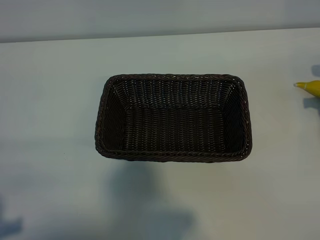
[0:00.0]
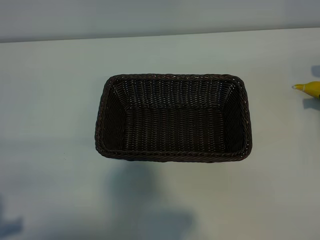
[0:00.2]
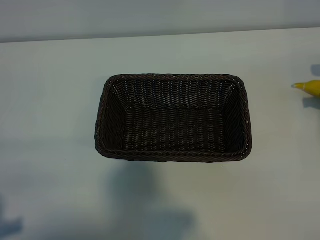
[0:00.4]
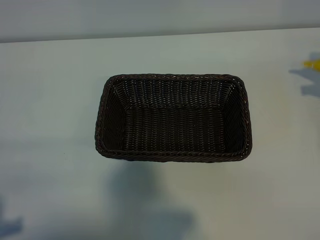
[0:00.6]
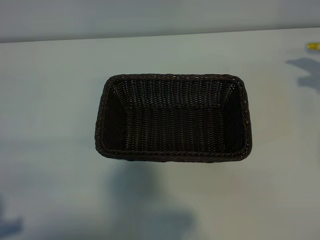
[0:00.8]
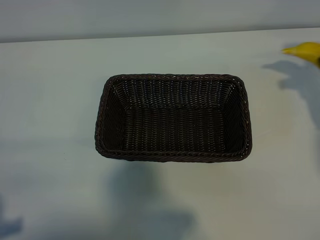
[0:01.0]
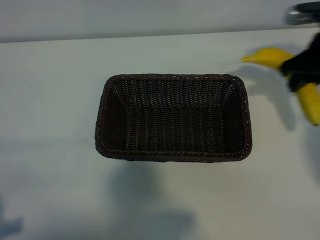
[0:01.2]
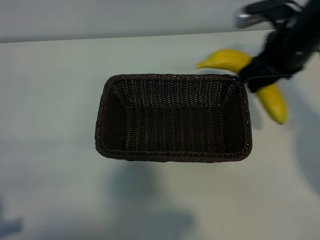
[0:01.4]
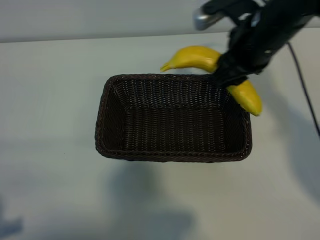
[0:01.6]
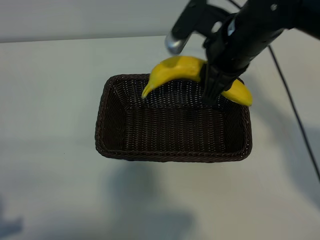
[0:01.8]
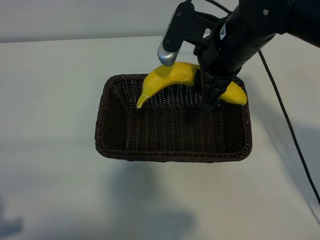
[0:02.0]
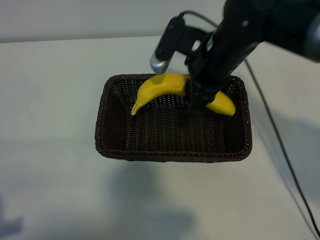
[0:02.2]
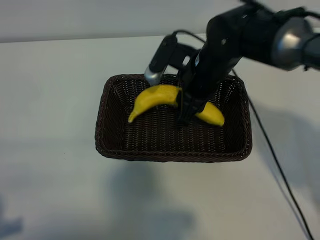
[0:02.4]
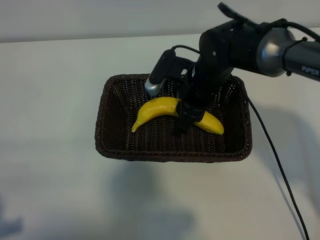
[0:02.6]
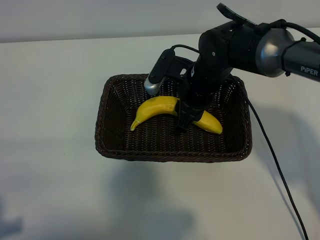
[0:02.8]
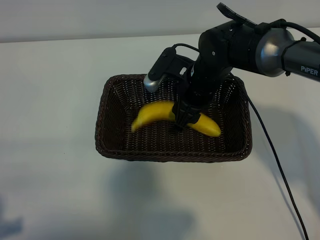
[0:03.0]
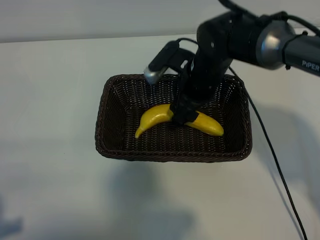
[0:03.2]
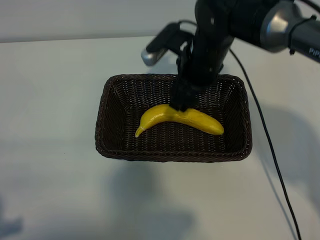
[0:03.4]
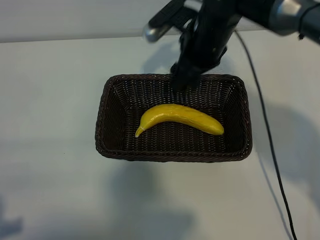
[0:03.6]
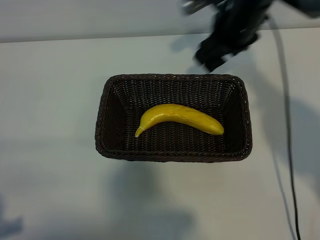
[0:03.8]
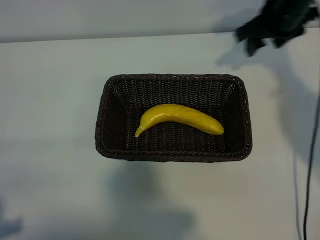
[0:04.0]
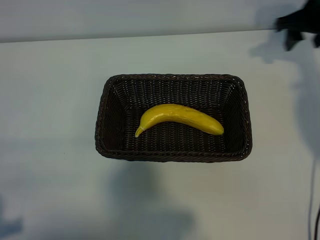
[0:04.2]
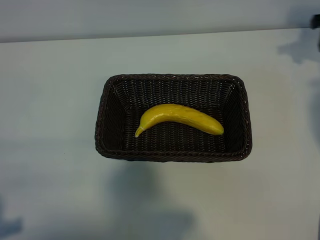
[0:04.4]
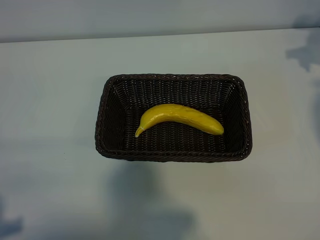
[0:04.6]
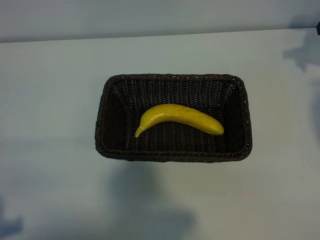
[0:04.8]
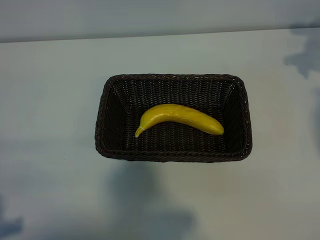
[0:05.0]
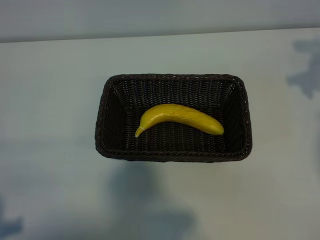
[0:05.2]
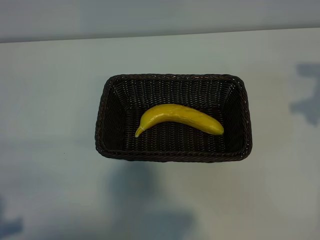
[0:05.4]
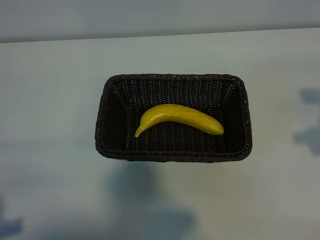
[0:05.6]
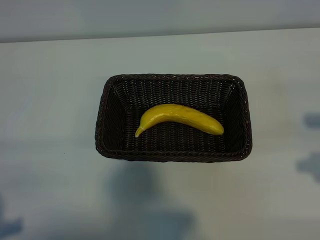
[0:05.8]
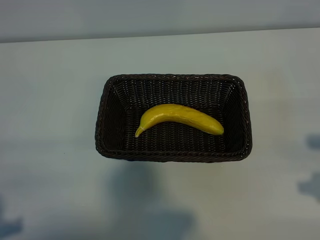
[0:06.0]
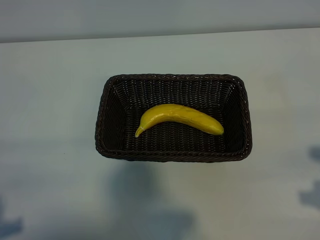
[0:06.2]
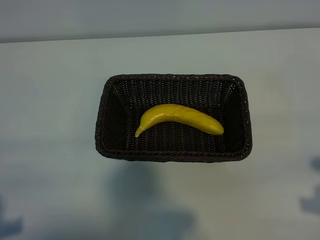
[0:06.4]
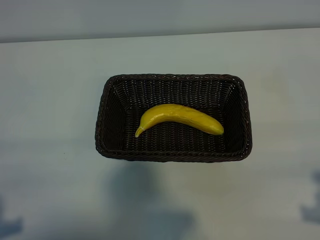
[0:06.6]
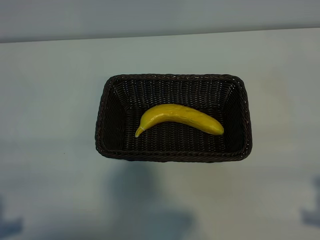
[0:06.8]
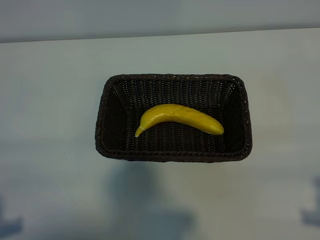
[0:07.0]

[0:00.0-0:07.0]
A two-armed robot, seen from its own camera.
Task of the whole recording: pick up the banana and put it into the basket.
Step, 0:00.2 to 0:03.0: Place the banana in the basket with right gripper.

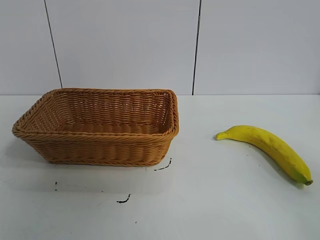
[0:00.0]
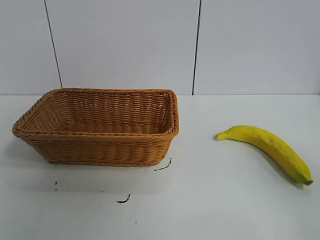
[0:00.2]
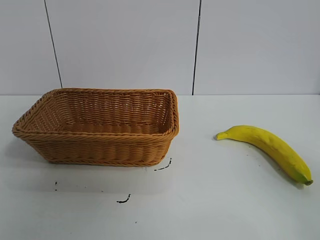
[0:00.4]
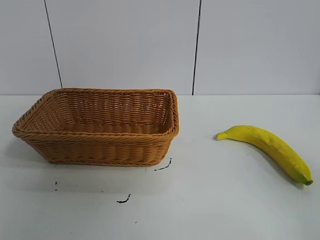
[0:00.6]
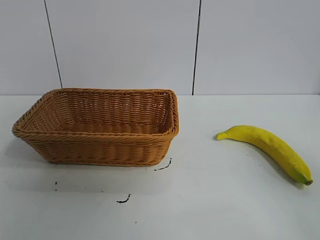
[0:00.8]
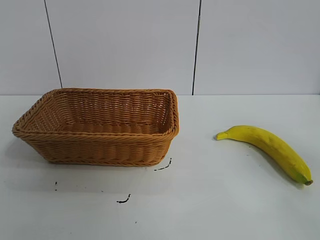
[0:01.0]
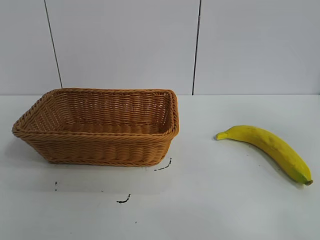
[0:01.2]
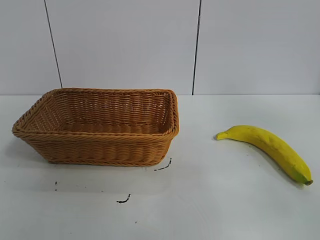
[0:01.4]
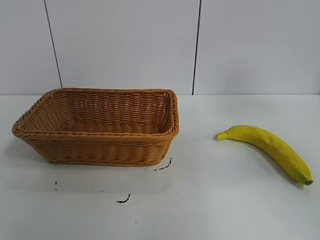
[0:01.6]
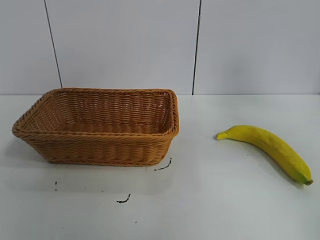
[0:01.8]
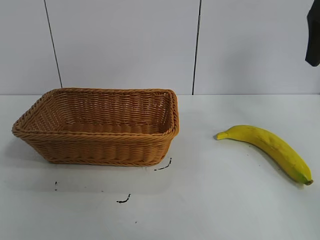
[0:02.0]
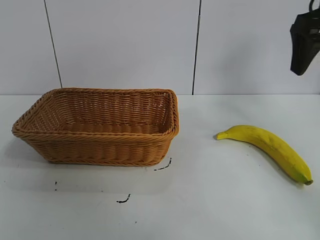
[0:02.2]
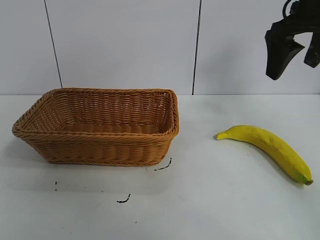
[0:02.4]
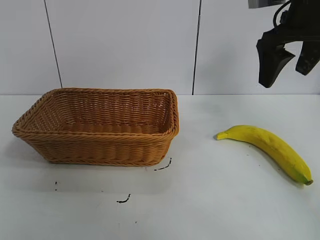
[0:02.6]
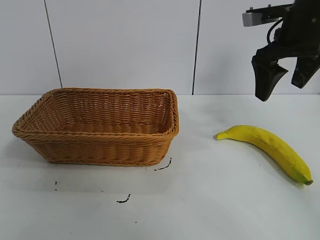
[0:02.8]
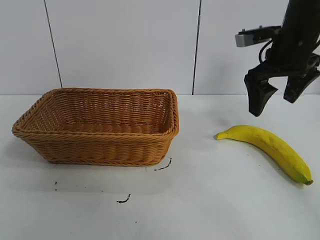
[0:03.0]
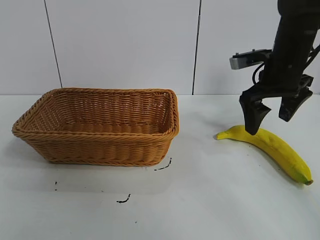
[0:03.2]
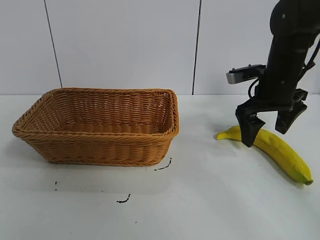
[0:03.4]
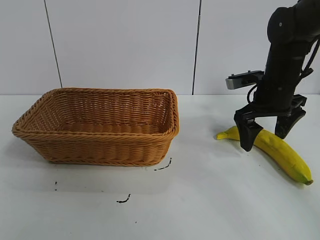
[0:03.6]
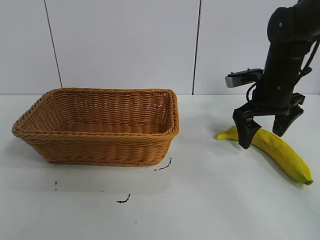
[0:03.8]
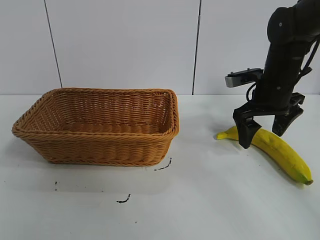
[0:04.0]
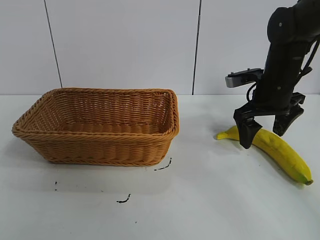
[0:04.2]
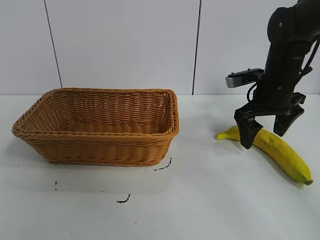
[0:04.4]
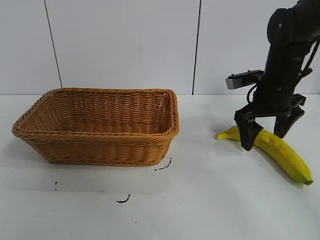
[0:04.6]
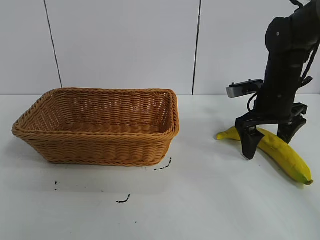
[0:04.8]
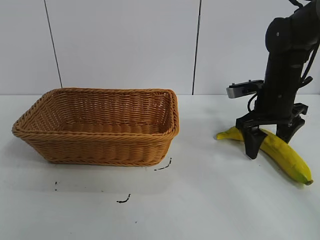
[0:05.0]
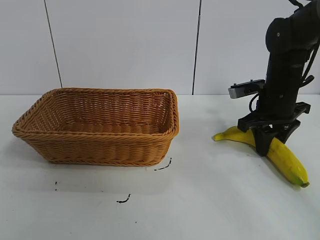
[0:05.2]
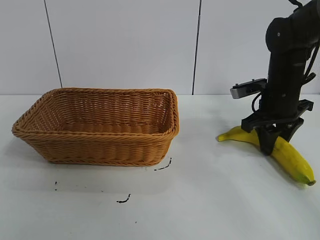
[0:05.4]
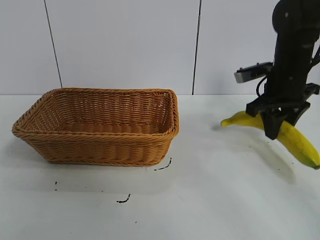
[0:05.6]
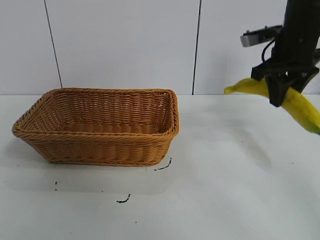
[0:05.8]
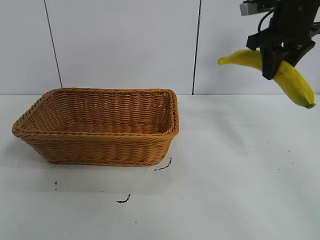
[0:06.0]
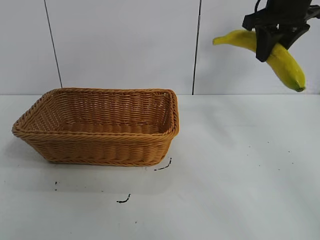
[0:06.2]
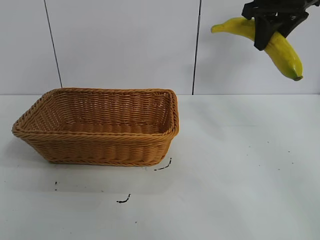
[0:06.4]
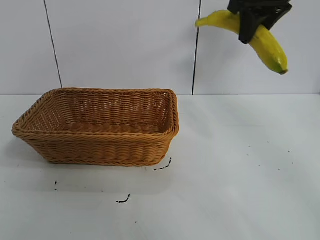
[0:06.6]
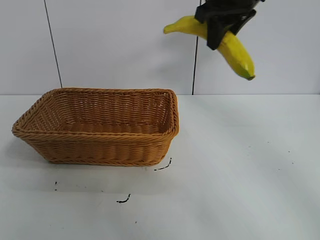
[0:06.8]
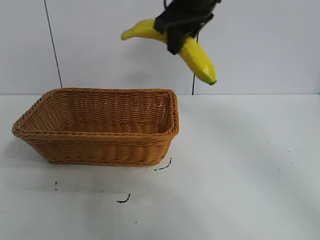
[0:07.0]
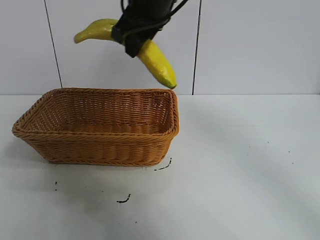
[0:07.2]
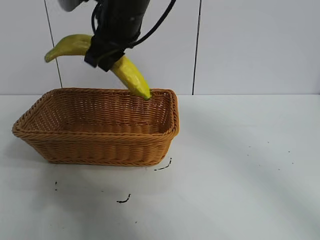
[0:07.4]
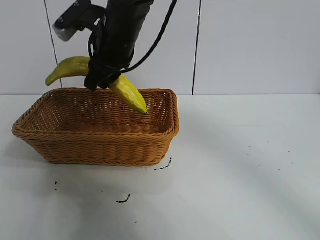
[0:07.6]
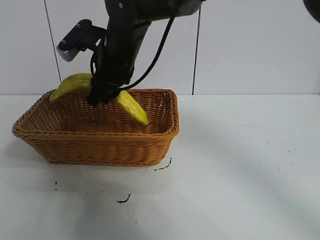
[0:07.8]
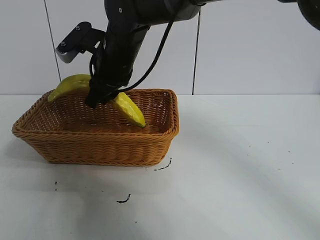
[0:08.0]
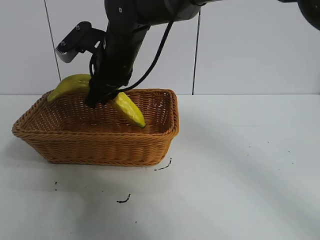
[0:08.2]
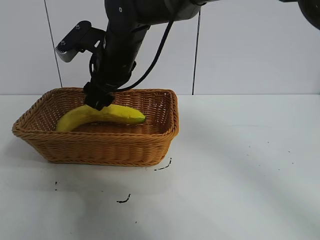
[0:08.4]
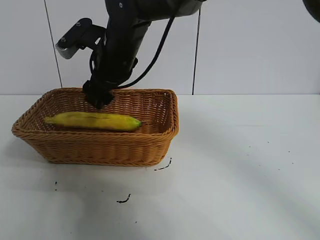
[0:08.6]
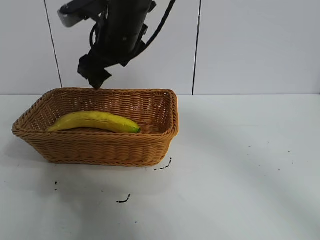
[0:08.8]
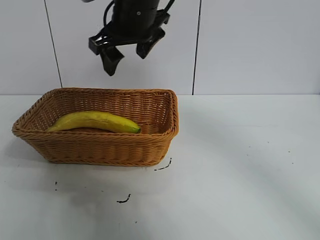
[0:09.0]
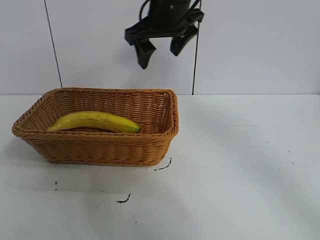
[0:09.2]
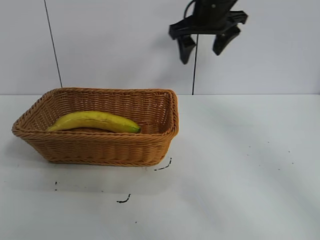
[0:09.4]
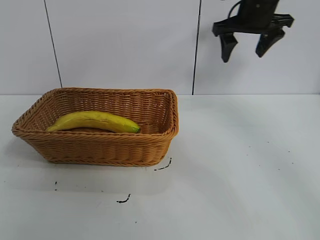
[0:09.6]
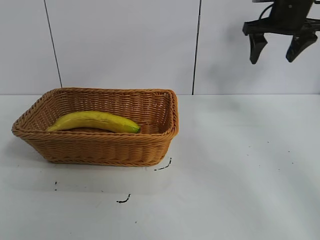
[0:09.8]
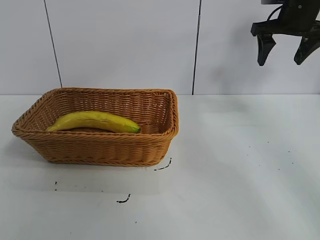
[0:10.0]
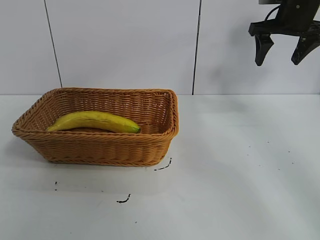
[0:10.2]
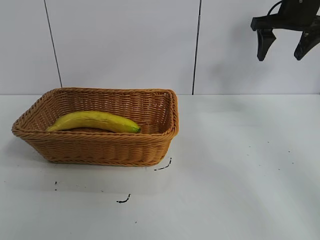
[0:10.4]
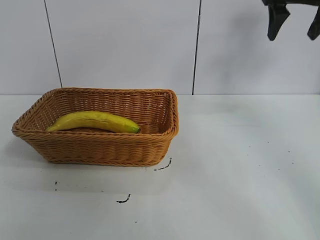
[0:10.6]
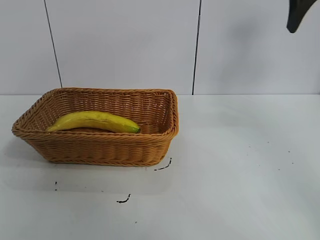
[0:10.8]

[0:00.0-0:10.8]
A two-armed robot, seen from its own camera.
Task of the whole recording: pick up the banana and put it into the basket.
Step, 0:00.8 to 0:05.2: Grasp the banana with right gripper.
Step, 0:05.4 to 0:08.4: Place the banana in the basket with right gripper.

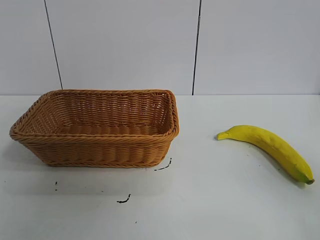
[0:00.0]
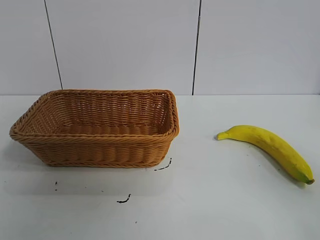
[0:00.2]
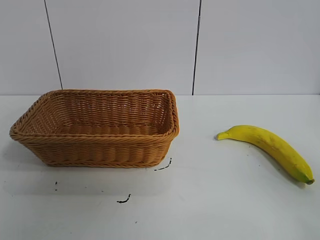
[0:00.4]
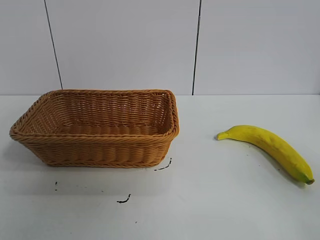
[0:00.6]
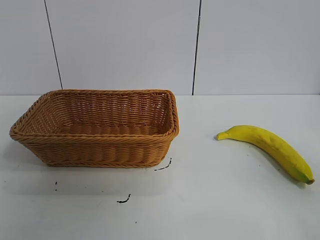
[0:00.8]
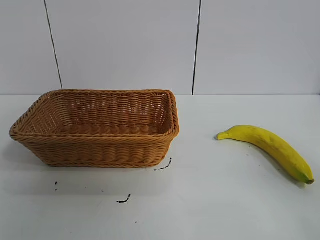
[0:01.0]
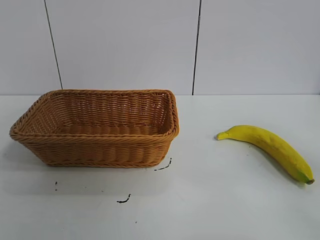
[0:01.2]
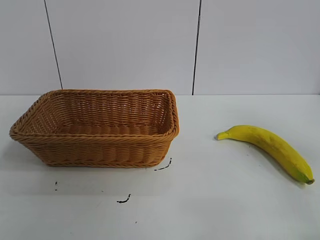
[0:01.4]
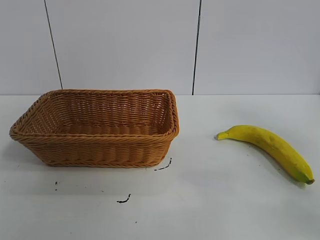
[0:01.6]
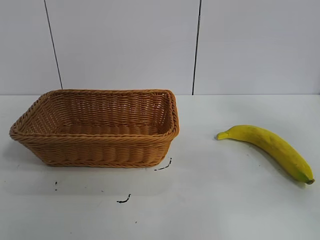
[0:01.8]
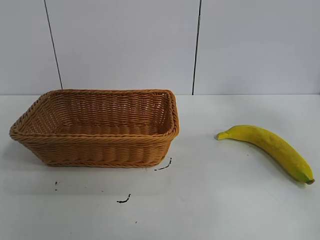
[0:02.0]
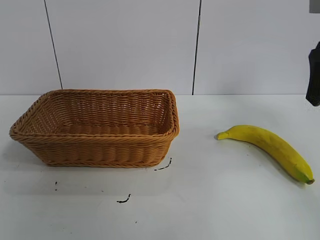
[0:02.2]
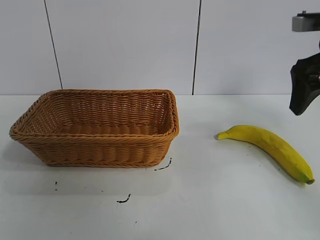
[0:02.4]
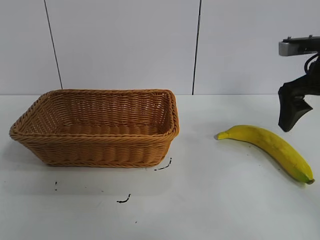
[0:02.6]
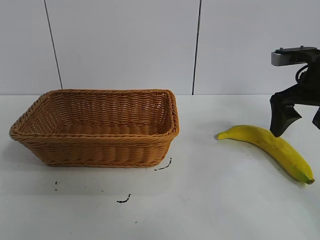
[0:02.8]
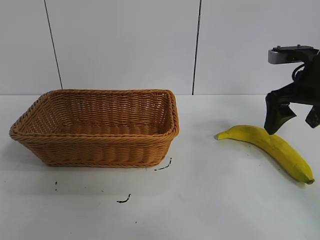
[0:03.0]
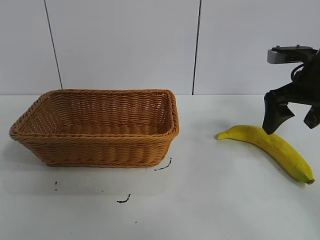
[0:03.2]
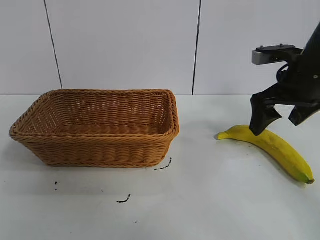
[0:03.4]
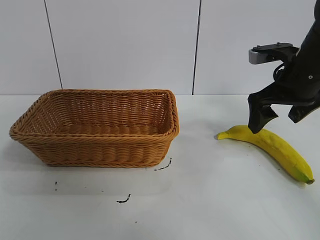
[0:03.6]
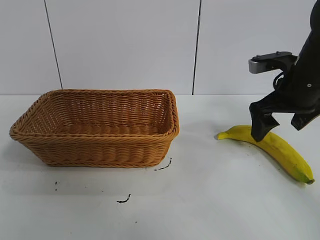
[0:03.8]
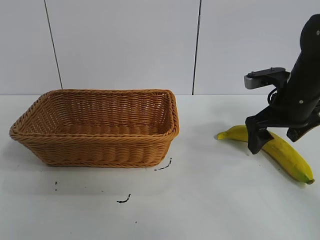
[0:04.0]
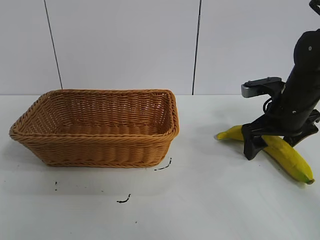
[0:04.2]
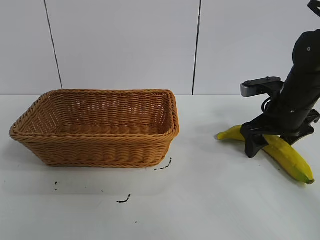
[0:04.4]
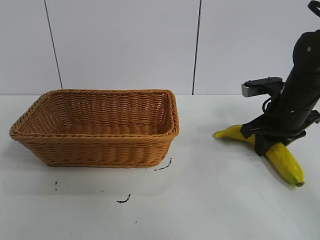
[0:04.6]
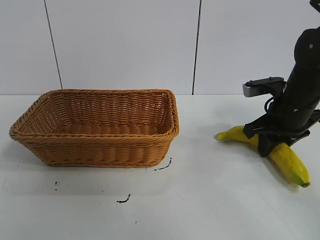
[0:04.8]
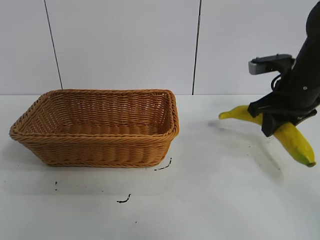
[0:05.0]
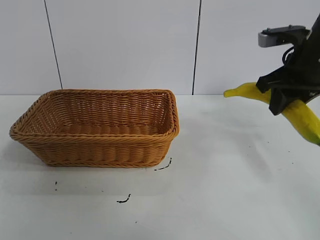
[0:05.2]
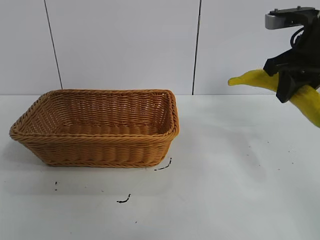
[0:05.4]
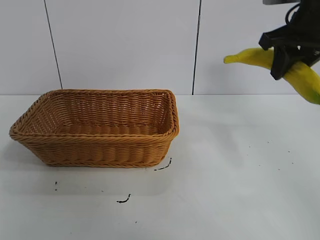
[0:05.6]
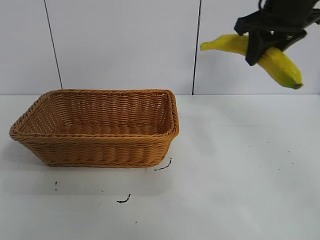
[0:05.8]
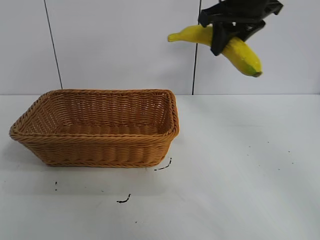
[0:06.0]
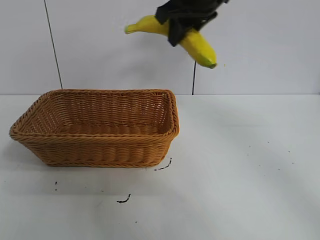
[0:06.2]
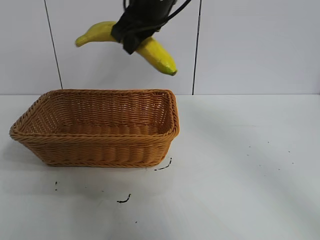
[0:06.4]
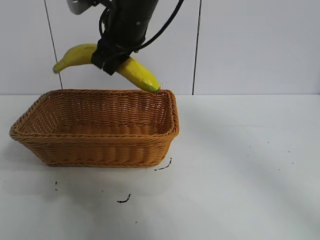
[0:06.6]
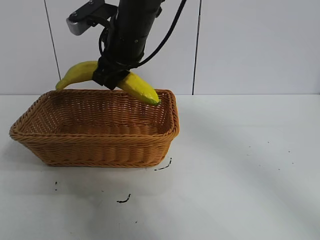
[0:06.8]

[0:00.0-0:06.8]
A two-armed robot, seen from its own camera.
Task of the whole recording: pick up the banana and put it into the basket.
Step, 0:00.8 to 0:04.6: Grasp the banana with right gripper.
